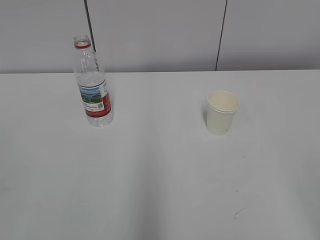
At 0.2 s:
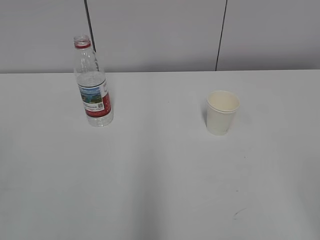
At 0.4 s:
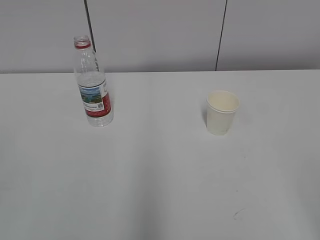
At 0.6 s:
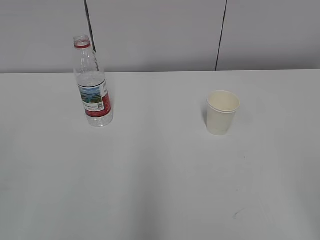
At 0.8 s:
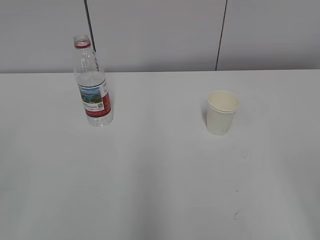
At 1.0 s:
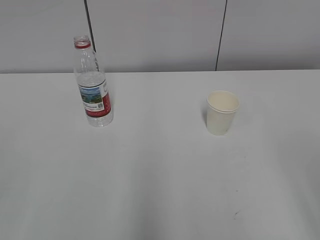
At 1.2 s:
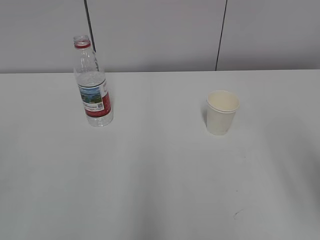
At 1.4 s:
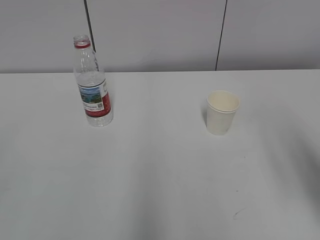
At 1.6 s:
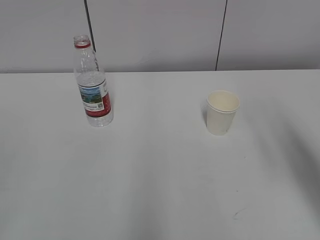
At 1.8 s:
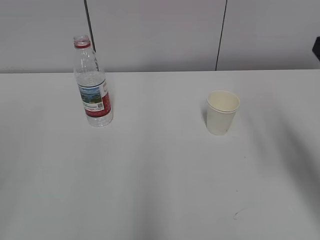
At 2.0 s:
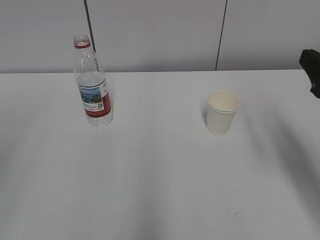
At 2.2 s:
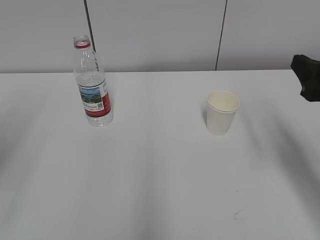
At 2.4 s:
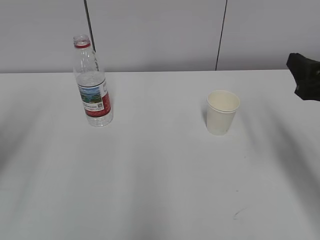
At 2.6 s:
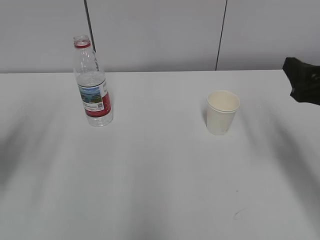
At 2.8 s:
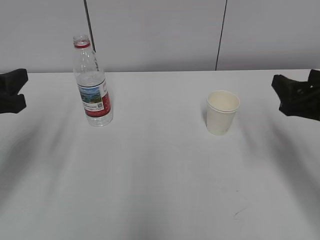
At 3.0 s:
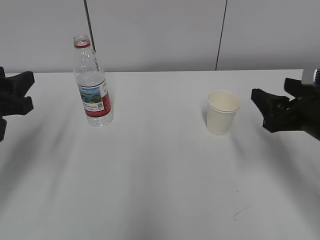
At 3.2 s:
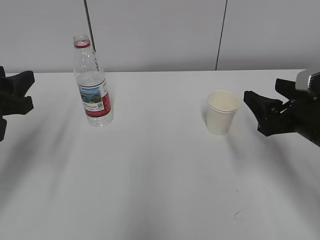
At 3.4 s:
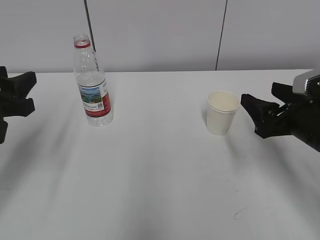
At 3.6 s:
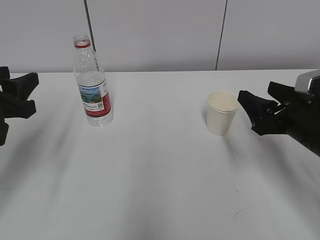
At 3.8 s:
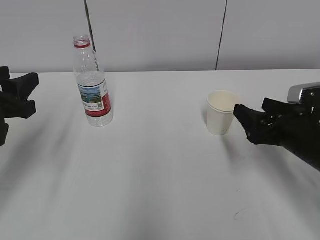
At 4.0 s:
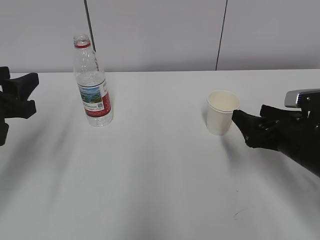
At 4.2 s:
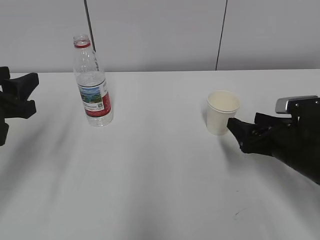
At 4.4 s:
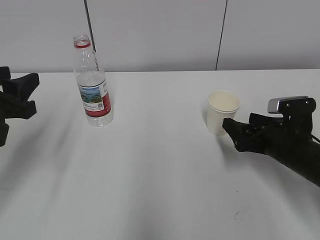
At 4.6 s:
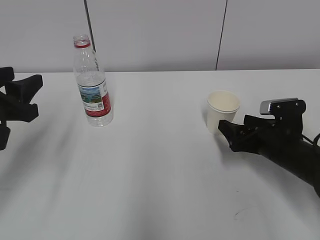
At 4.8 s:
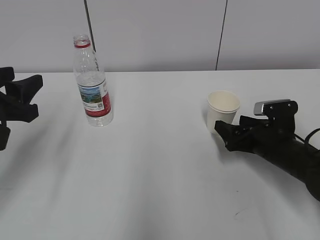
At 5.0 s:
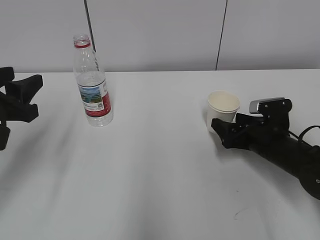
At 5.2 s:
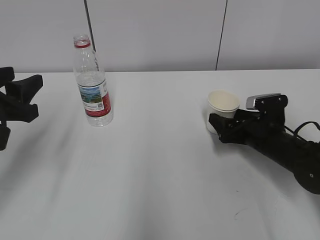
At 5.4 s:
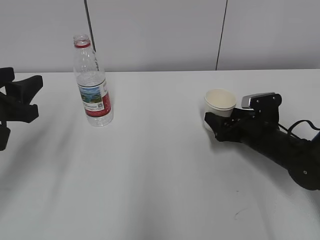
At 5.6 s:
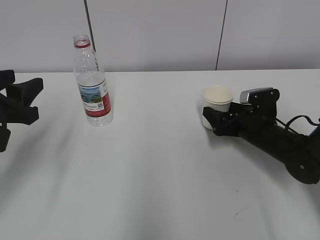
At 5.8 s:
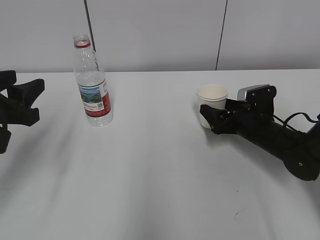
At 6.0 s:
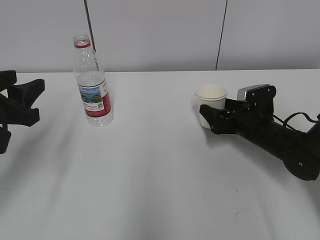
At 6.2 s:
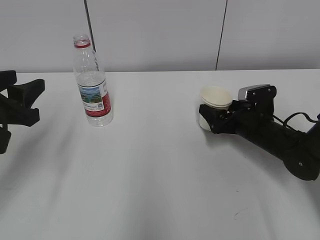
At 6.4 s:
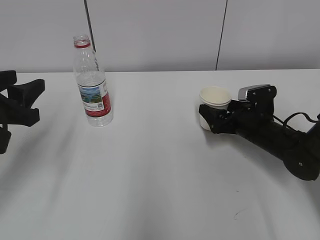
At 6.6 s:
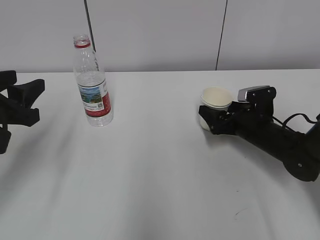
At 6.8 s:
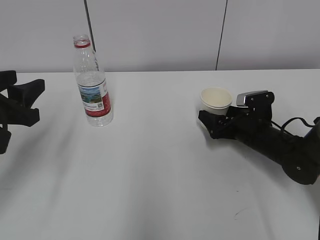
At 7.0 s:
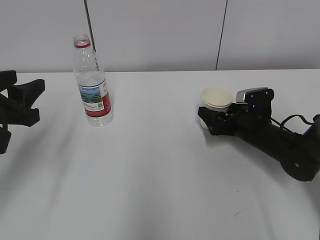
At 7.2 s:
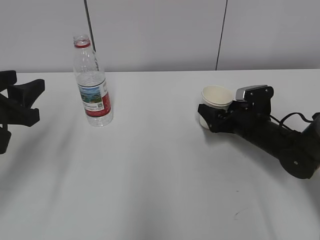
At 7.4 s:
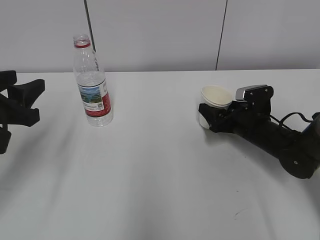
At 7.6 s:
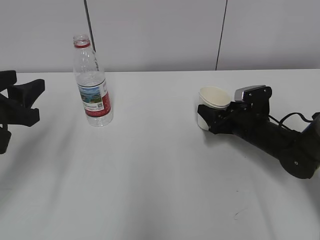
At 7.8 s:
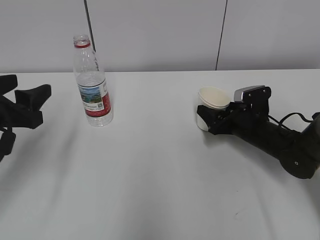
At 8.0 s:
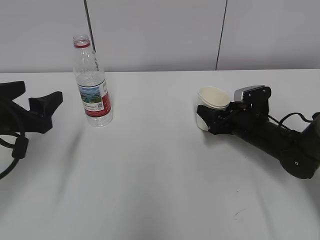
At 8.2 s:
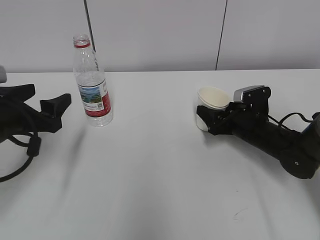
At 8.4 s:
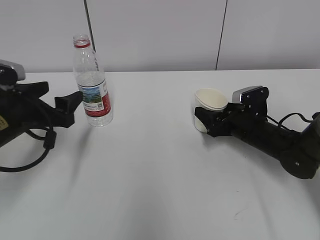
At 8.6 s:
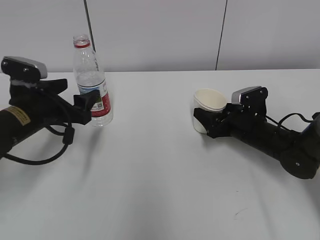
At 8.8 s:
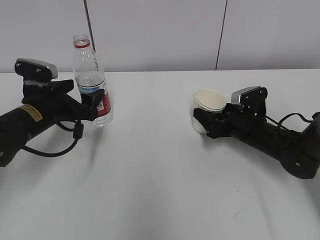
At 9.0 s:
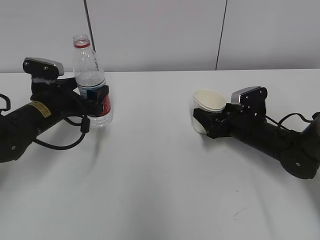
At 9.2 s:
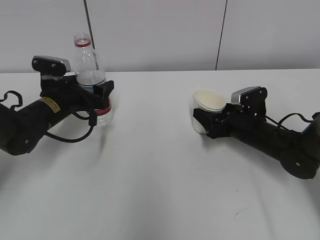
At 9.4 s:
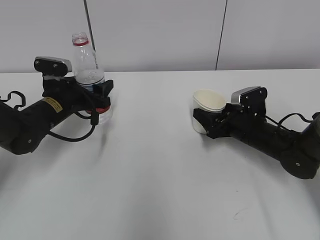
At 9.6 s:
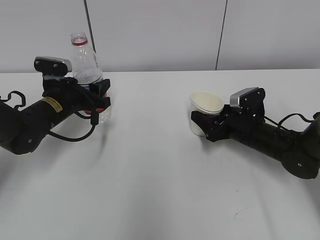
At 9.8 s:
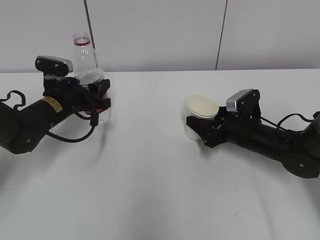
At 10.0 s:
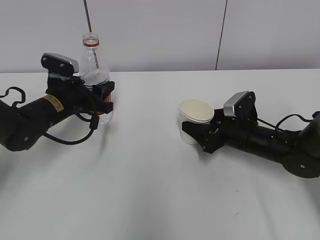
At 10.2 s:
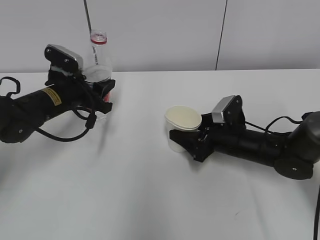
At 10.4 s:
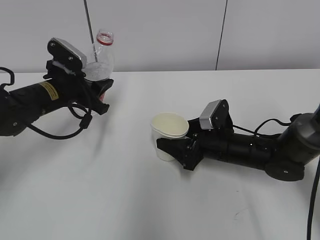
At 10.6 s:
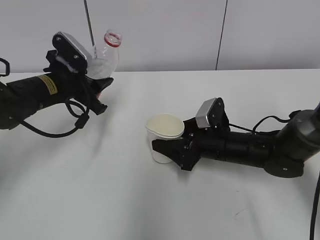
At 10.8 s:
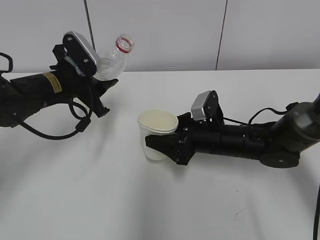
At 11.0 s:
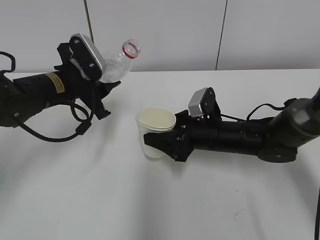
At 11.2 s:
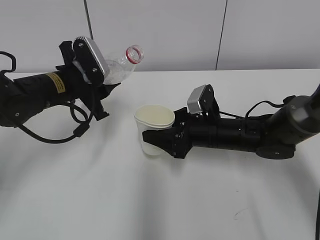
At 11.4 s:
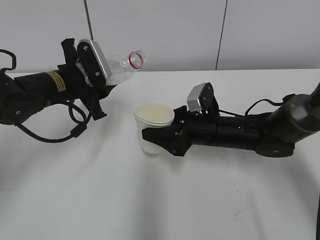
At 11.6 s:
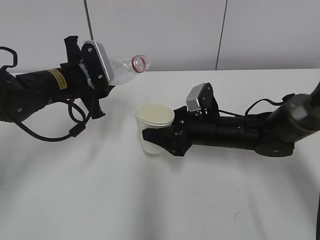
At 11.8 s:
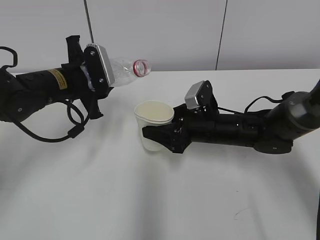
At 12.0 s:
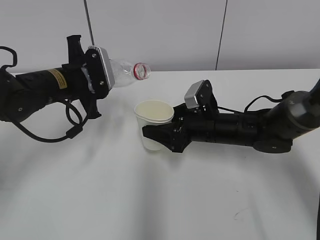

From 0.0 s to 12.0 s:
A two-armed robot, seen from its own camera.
Step, from 0.0 s to 7.8 s: Grab the paper cup with the right hand.
Step, from 8.2 s to 11.2 s: Lift the paper cup with the right hand.
From 1.6 s to 3.0 s: The left gripper shifts approximately 25 cm forward. Meanwhile the right gripper is displaced downward and forward by roughly 15 cm.
From 3.0 s to 4.4 s: The right gripper is displaced downward by some 10 cm.
From 4.4 s to 6.0 s: The right gripper heads forward, covering roughly 10 cm.
From 6.0 s to 7.6 s: The right gripper closes.
From 7.6 s to 9.0 s: The left gripper is displaced forward and downward by approximately 15 cm, and opens up.
From 9.0 s to 10.4 s: The right gripper heads to the left, covering some 5 cm, while the left gripper closes its fingers.

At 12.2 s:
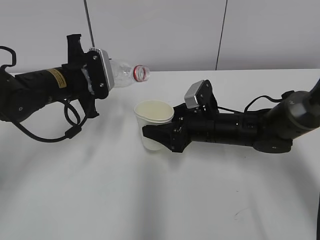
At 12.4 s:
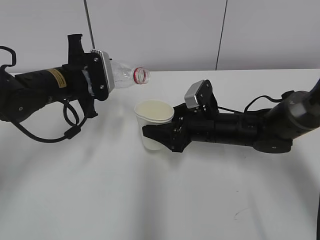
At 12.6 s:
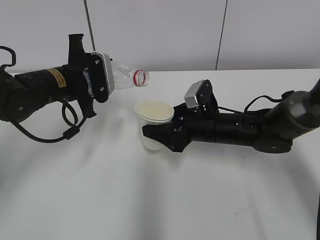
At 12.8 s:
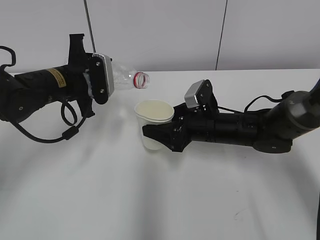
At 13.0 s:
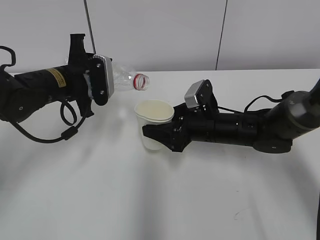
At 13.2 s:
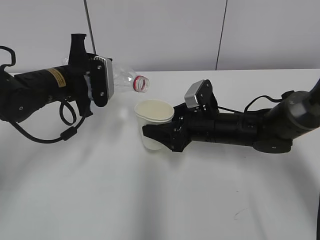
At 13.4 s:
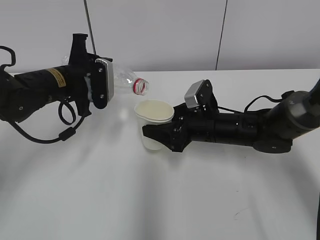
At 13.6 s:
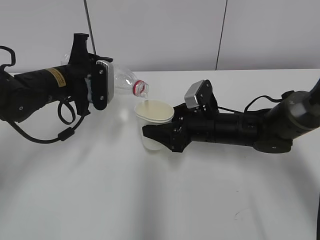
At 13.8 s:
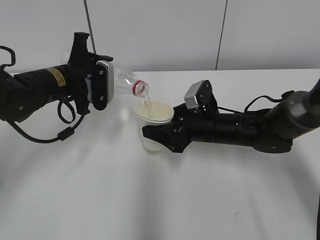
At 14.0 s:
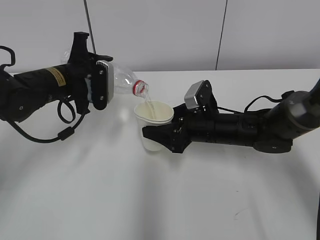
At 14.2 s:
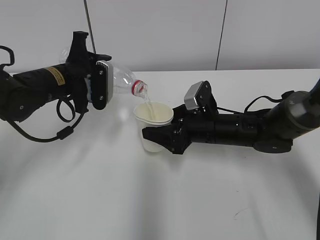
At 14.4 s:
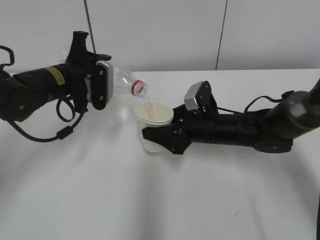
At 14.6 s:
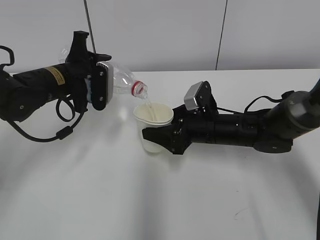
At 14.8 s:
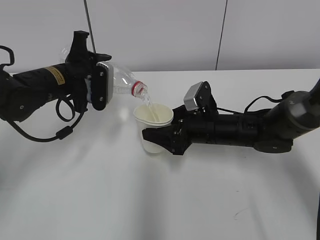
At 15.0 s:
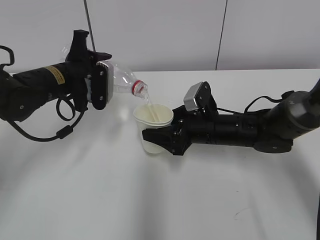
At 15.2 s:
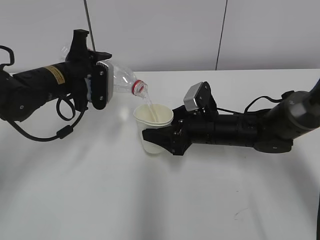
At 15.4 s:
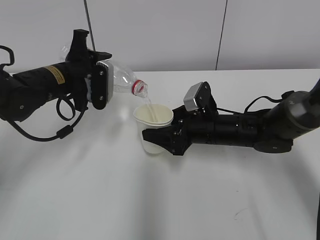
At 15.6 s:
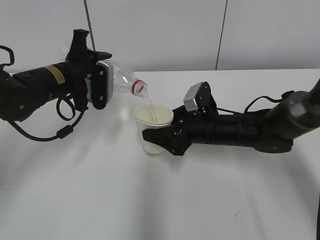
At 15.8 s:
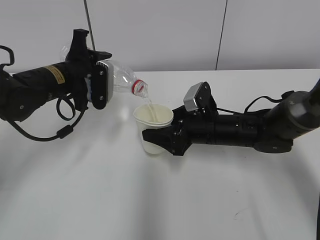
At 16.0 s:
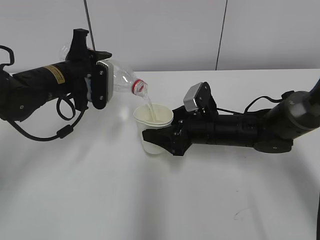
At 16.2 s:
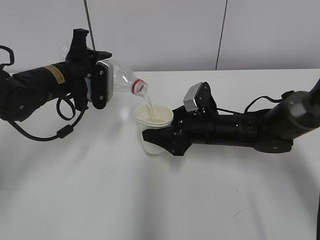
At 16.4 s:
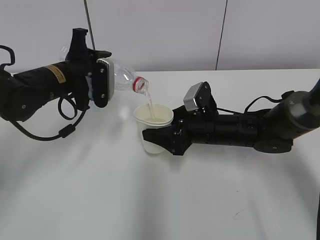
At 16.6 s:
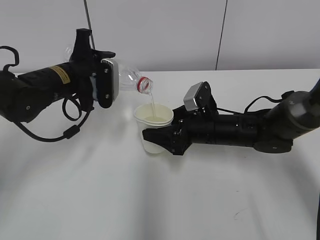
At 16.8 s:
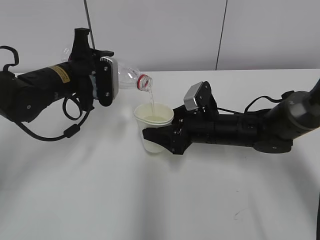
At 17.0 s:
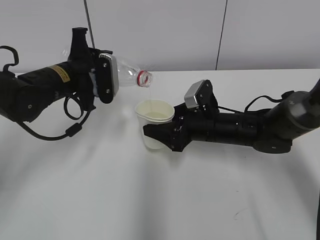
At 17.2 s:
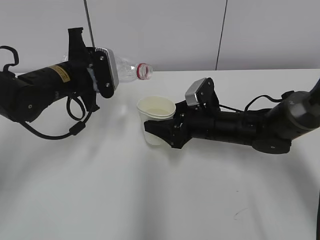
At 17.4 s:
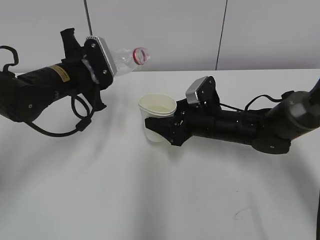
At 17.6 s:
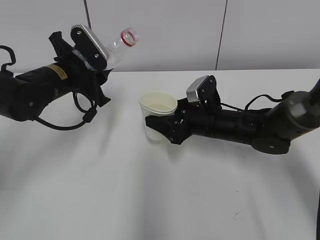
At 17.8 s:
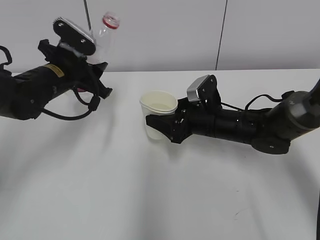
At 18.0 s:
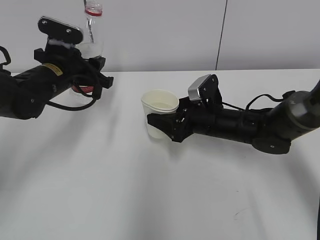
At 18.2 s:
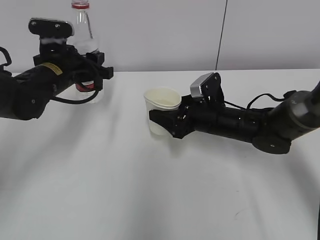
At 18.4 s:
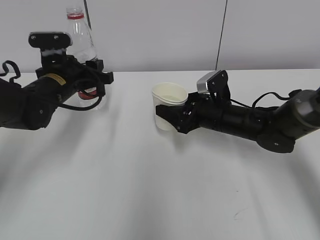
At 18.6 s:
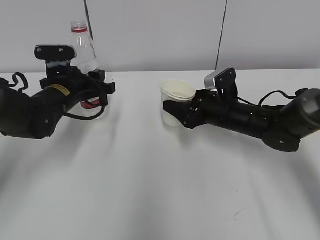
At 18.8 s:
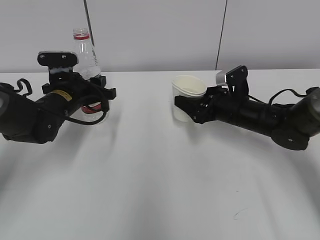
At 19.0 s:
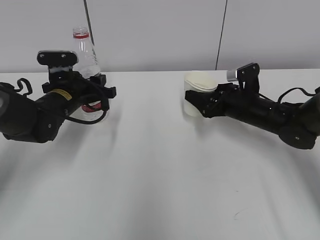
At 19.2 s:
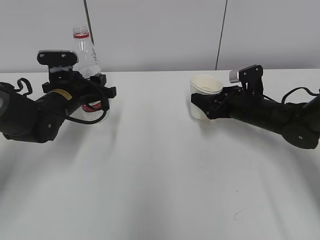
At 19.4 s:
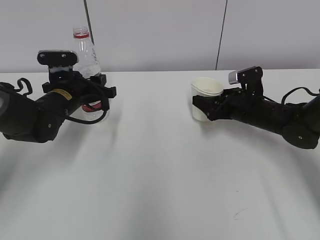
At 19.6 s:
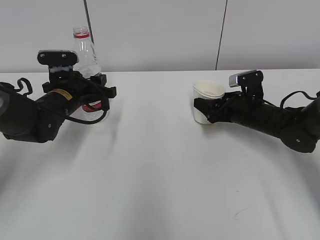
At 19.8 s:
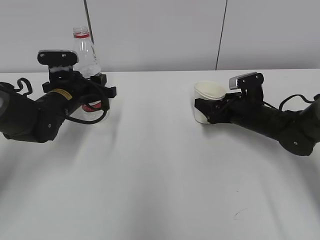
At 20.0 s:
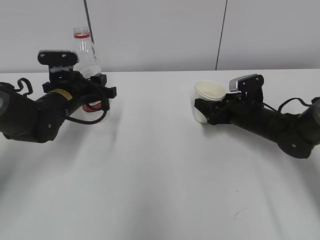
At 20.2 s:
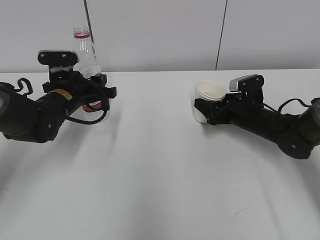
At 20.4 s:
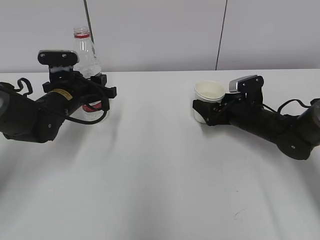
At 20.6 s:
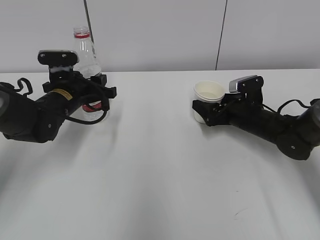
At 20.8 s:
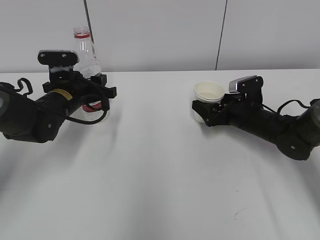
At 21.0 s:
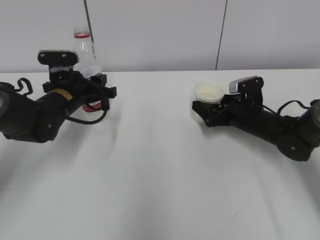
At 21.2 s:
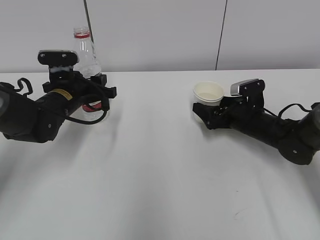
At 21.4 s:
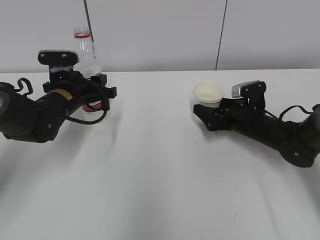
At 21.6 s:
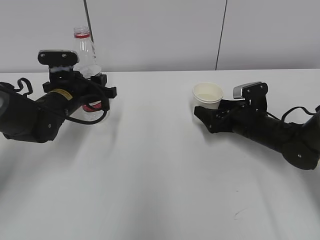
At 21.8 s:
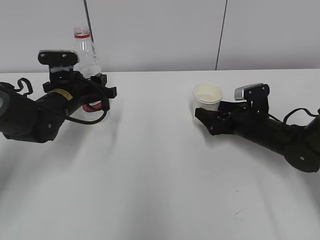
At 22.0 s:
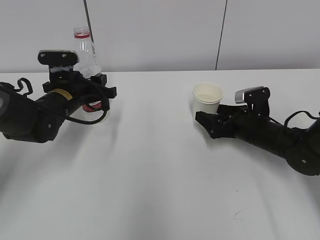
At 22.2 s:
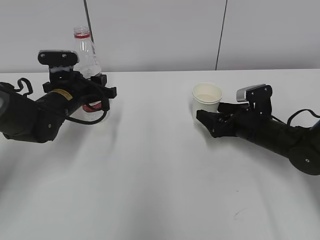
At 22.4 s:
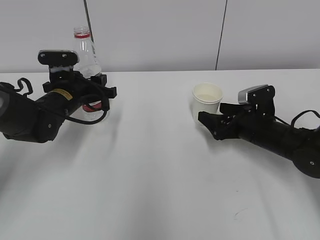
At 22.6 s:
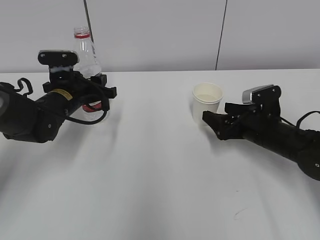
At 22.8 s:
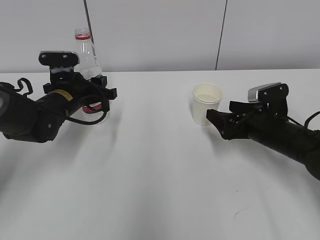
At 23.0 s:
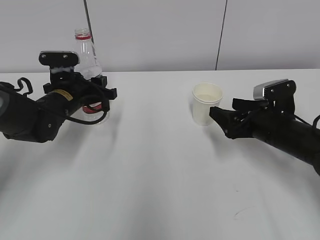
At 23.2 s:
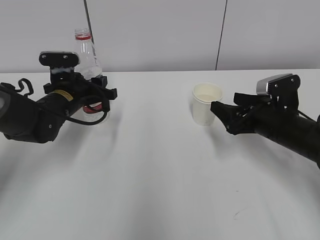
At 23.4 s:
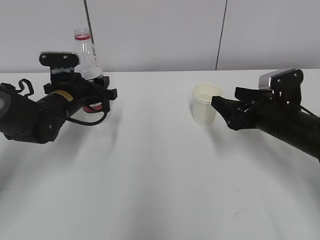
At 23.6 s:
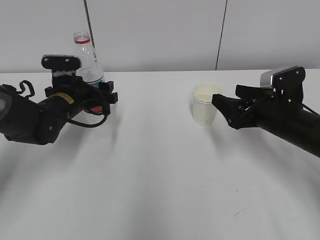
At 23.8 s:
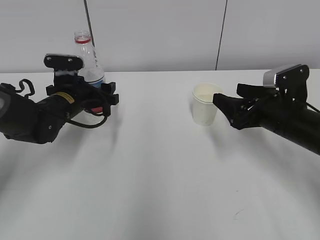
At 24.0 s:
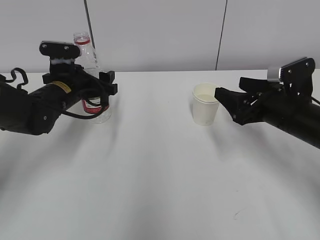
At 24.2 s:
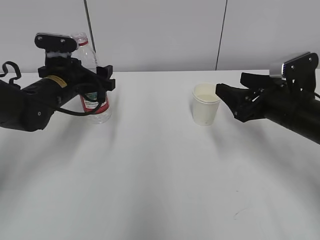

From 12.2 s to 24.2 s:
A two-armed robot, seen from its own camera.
Step, from 12.2 s to 14.0 s: Fill water with the right hand.
Step, from 12.2 s to 14.0 s: Pour water with the left hand.
Step, from 15.4 s to 17.0 s: Place the paper cup with the right hand.
Step, from 17.2 s to 19.6 s: Place the water bottle with the left hand.
From 12.2 s to 13.8 s: The grippers make only small movements.
From 13.8 s to 16.6 s: Neither gripper changes place.
From 18.2 s to 19.8 s: The left gripper goes roughly 5 cm downward; the right gripper shifts approximately 10 cm to the right.
From 19.8 s to 21.2 s: The right gripper opens its fingers.
From 21.2 s to 22.6 s: The right gripper shifts by approximately 5 cm.
From 22.6 s to 24.2 s: The left gripper opens its fingers. The right gripper is displaced upward by some 10 cm.
